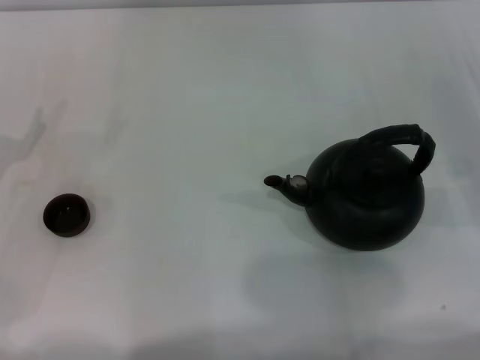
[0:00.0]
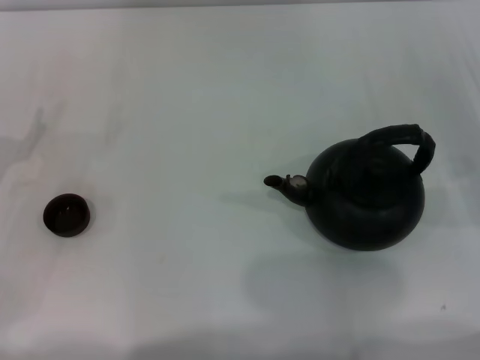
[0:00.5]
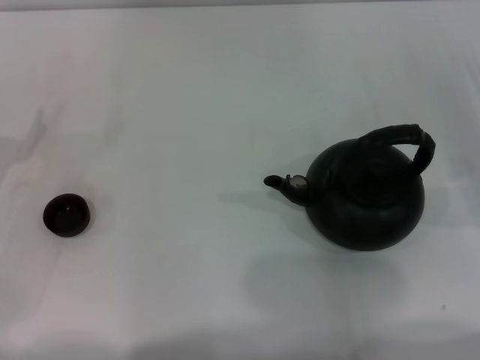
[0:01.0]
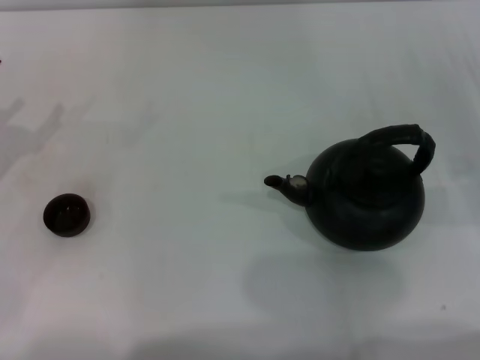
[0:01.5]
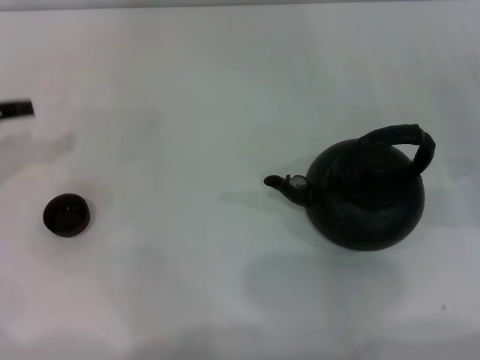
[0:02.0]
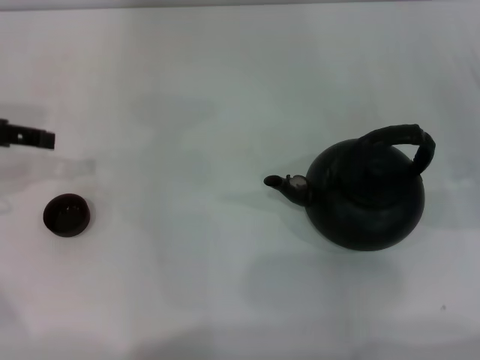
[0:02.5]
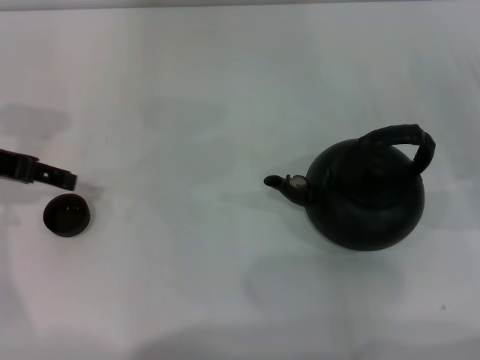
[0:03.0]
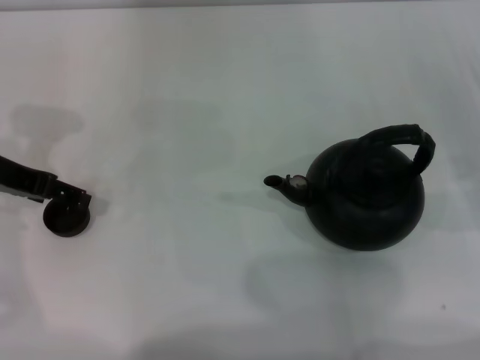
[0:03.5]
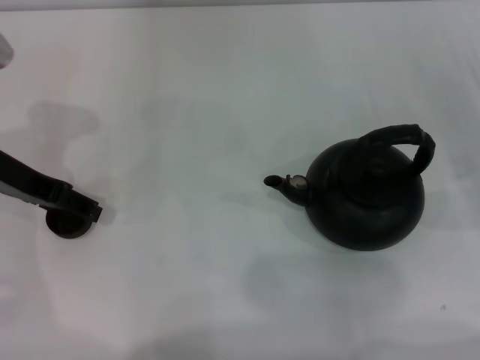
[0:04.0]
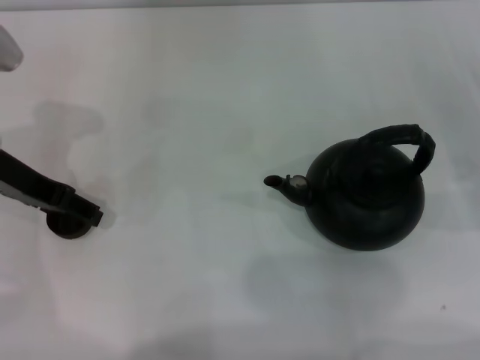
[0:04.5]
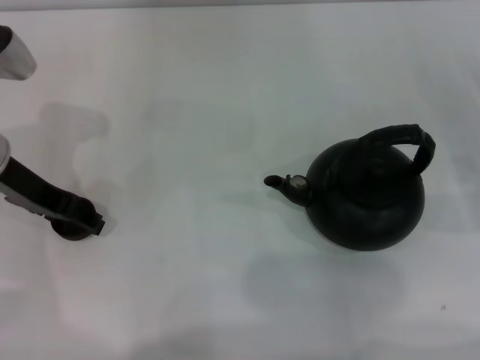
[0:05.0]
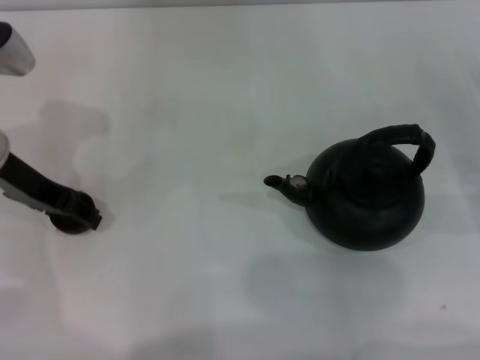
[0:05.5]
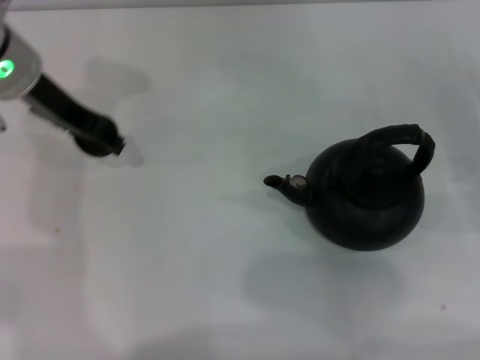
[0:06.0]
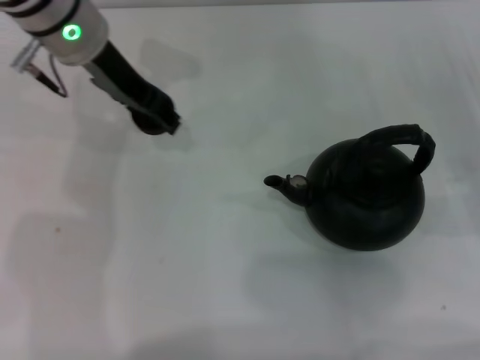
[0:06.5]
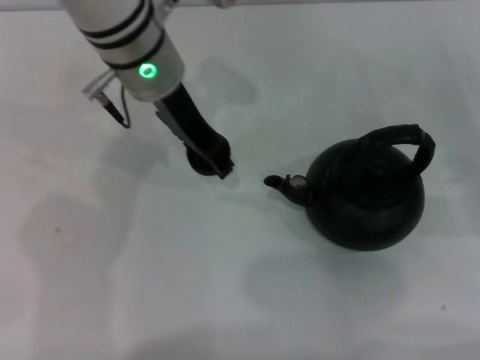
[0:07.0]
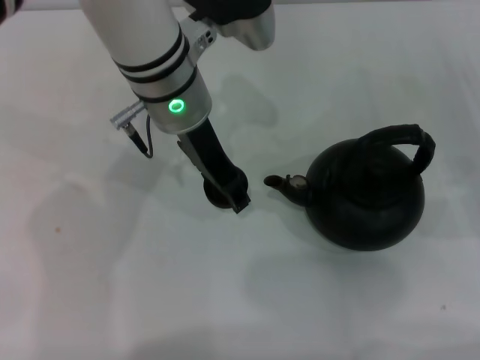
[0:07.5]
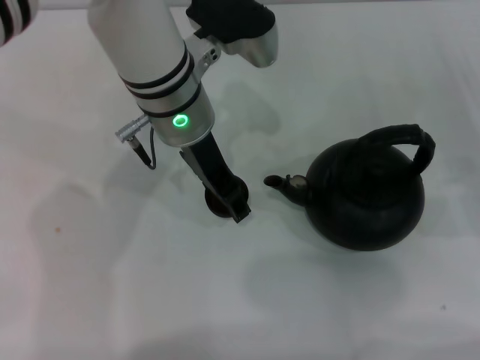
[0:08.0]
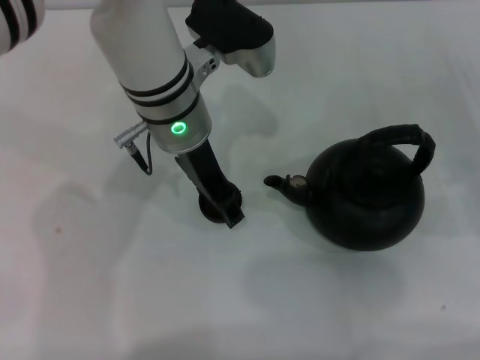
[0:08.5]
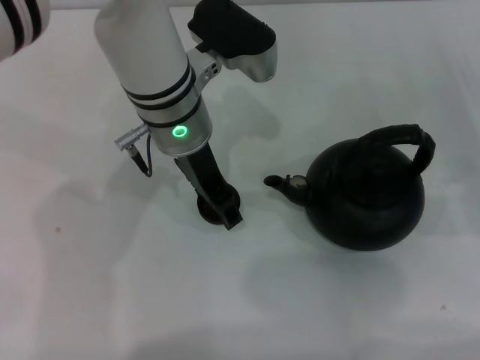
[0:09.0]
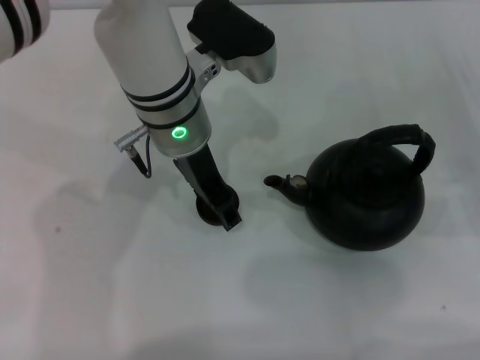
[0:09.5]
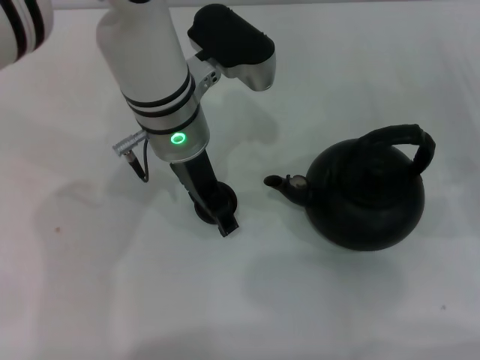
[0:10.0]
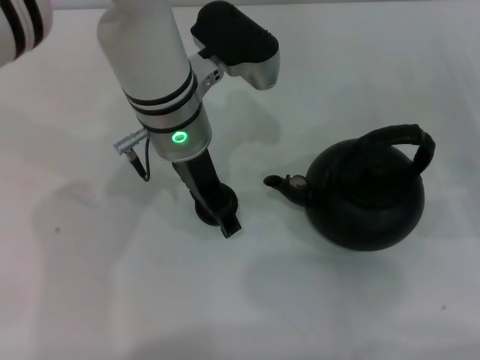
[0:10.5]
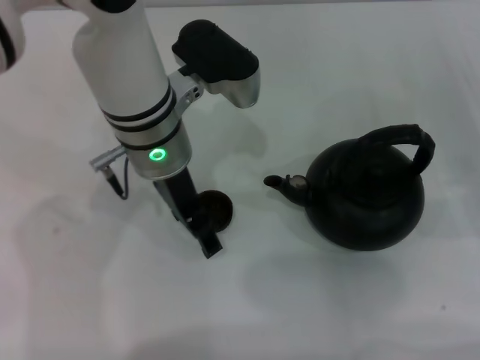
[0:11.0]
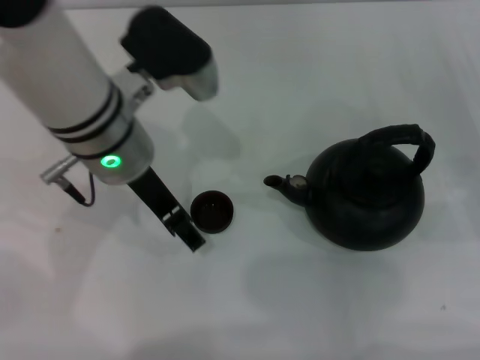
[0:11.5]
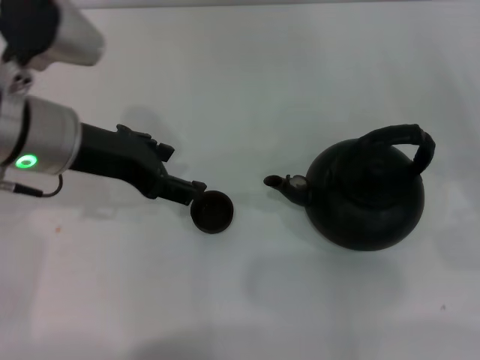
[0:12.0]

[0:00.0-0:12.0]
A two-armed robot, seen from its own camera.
Task of the whole recording: Grasp the handle of the teapot with one hand and pour tea into the teacup.
Step, 0:00.0 to 0:05.5: Pick up the teacup with the left gripper.
0:02.0 to 0:04.0: The left gripper shifts approximately 10 cm to the right.
0:04.0 to 0:06.0: The left gripper travels forward and to the right by some 10 cm, and closes its fingers.
0:06.0 to 0:08.0: The left gripper is displaced to the right by roughly 15 cm.
0:08.0 to 0:10.0: The left gripper opens up.
0:10.0 to 0:12.0: The left gripper goes some 15 cm to the left and backward, and opens its fingers.

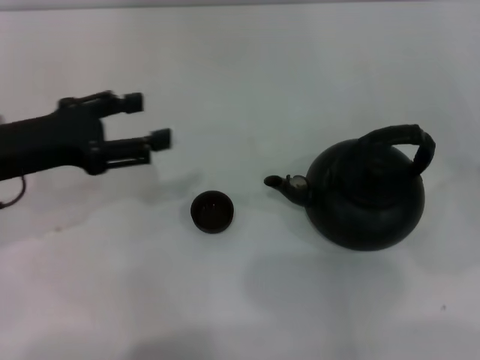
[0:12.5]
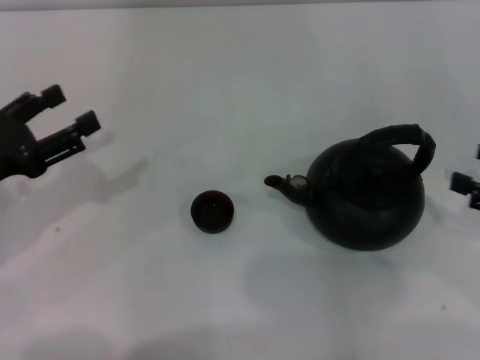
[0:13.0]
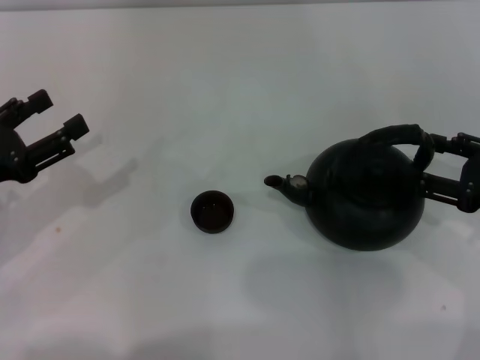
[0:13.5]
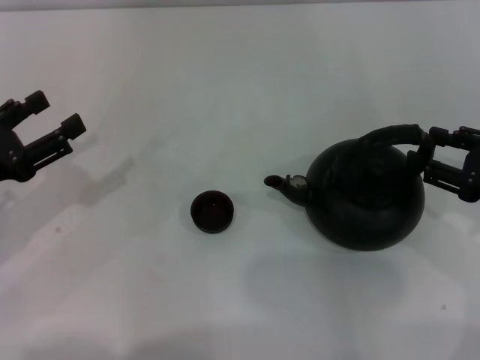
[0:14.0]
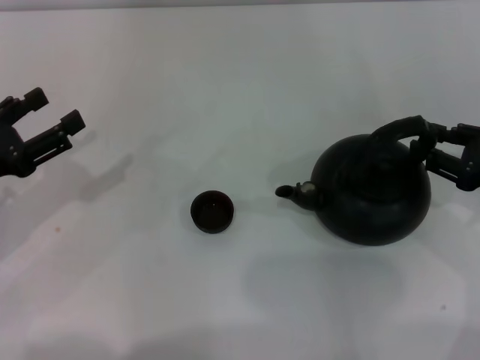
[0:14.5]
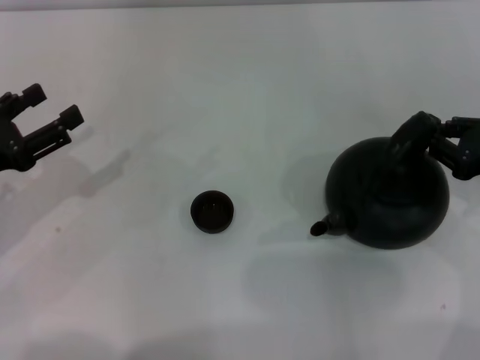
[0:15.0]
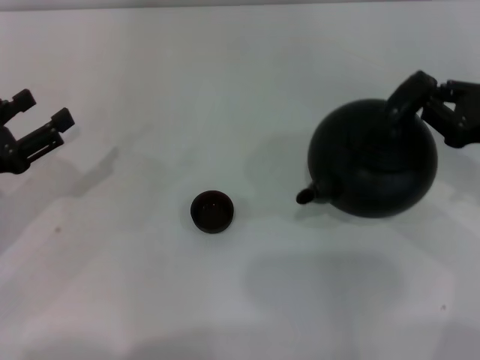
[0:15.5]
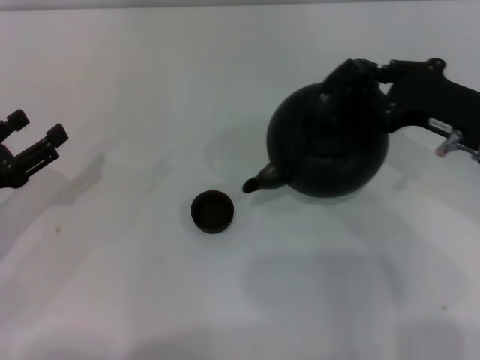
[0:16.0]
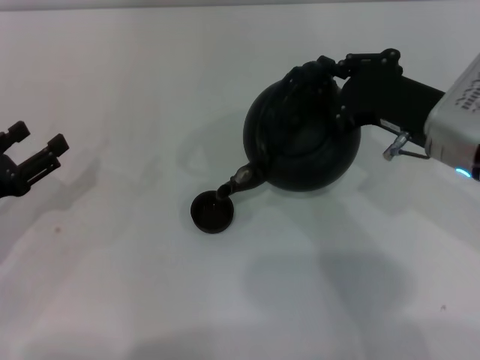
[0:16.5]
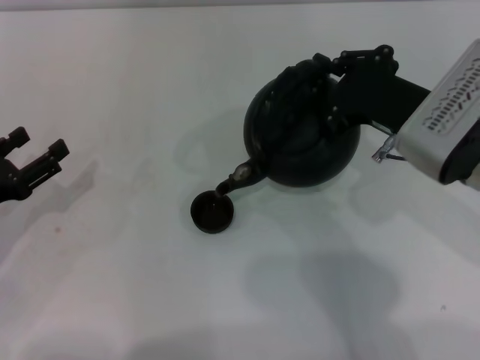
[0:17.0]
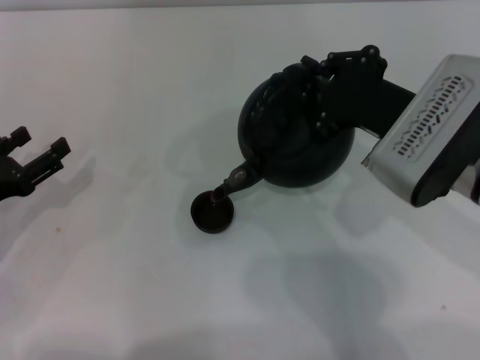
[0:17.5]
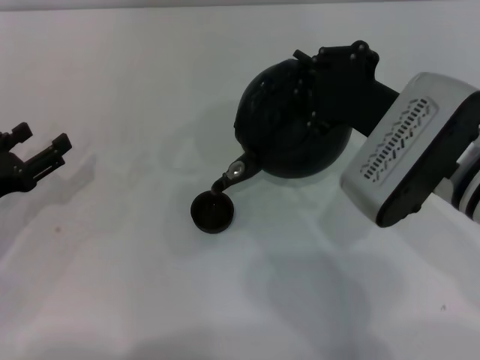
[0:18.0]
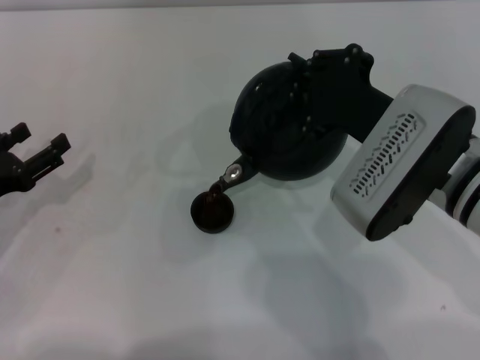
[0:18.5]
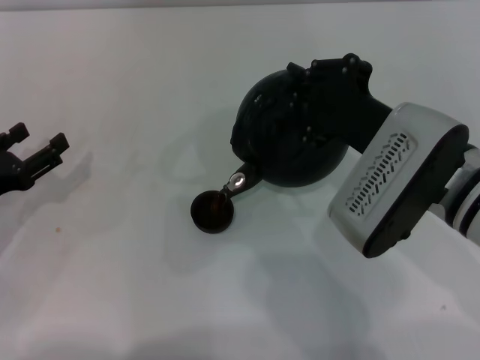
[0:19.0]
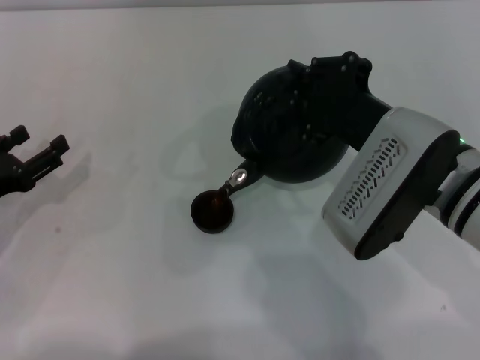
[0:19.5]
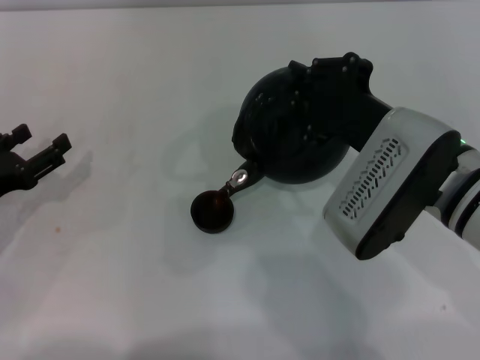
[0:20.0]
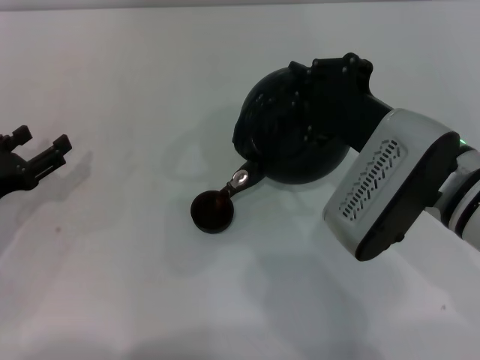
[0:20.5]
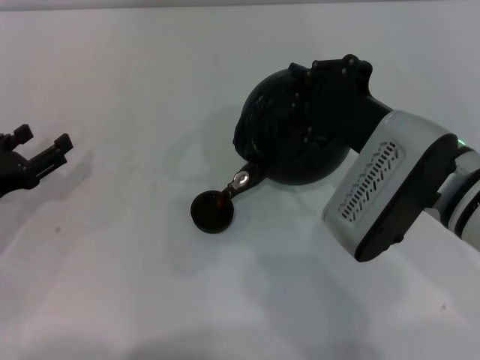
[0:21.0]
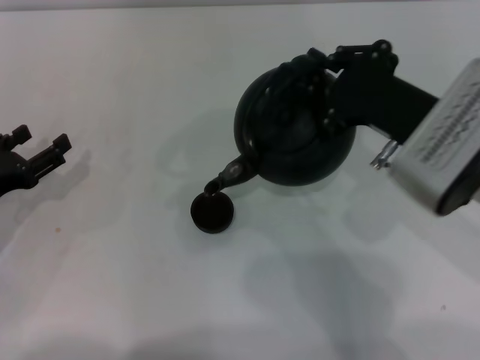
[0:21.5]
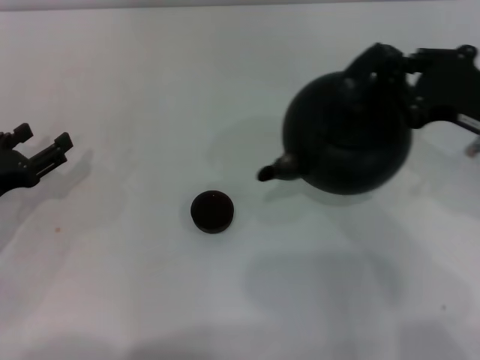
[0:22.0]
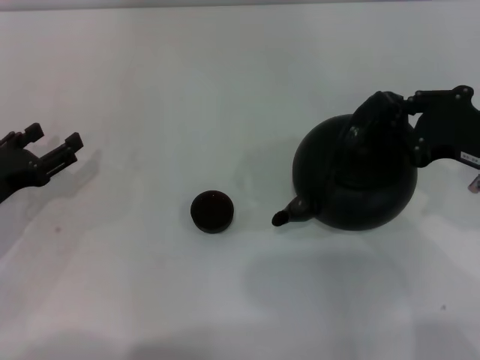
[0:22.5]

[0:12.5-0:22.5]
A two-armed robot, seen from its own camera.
Task of the whole recording: Grasp the handle of the teapot with one hand and pour tea into the teacup.
Step, 0:12.5 to 0:15.5: Pick up the teapot with the right gripper.
Step, 0:16.0 to 0:21.5: Pour tea into the teacup with the right gripper.
0:12.5 to 0:14.5: The left gripper goes some 5 cm to the left, while the right gripper moves to the left and forward, about 10 cm, and closes.
0:14.5 to 0:16.5: The right gripper is displaced to the left by approximately 15 cm, and closes its fingers.
0:16.5 to 0:18.5: The right gripper shifts by approximately 5 cm.
0:18.5 to 0:20.5: There are only small adjustments of the grippers.
0:20.5 to 0:22.5: The right gripper shifts about 10 cm to the right.

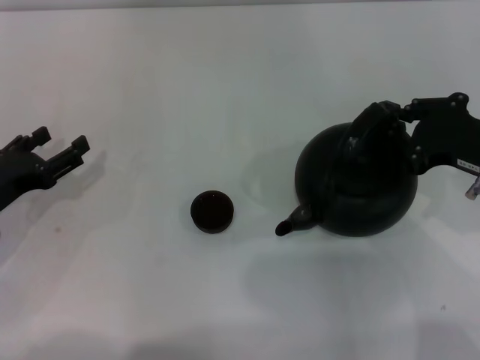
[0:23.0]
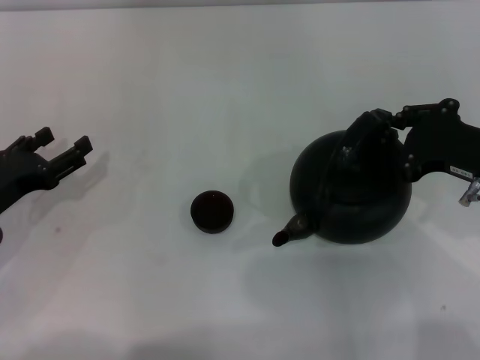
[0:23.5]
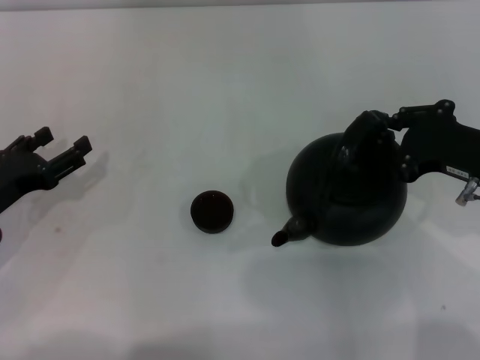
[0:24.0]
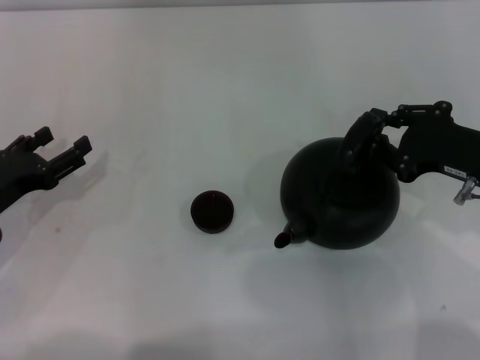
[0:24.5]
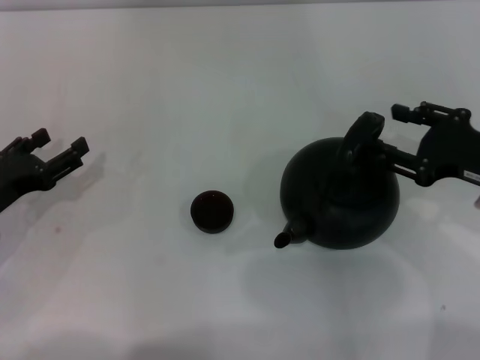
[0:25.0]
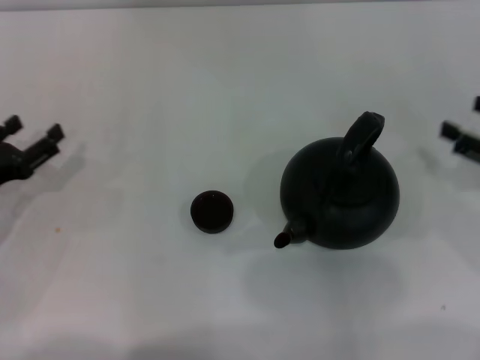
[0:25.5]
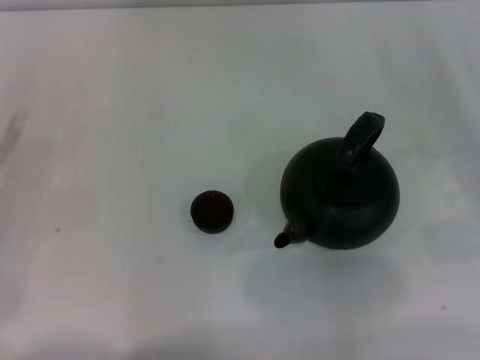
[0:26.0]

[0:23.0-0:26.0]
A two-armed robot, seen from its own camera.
Task of the whole recording: Grasp the handle of the teapot with one hand and pour tea into the teacup.
Step, 0:23.0 to 0:25.0: Put down the teapot with the right gripper.
0:23.0 to 0:24.5: Both grippers stay about where they are.
0:24.5 to 0:26.0: The right gripper heads to the right, covering roughly 10 cm, and opens, while the left gripper moves to the left, approximately 5 cm.
